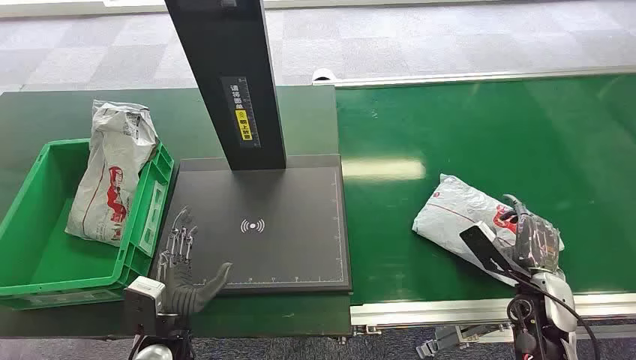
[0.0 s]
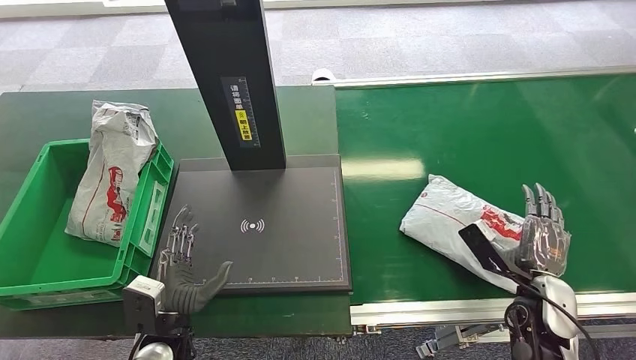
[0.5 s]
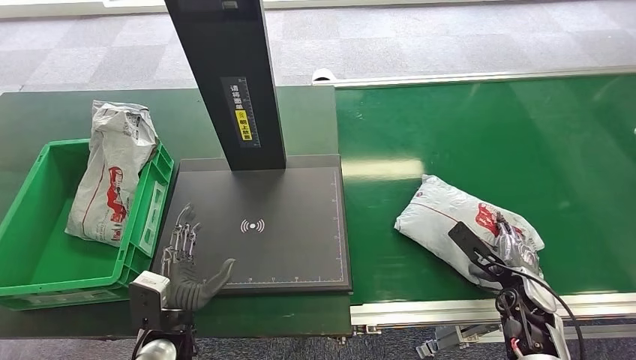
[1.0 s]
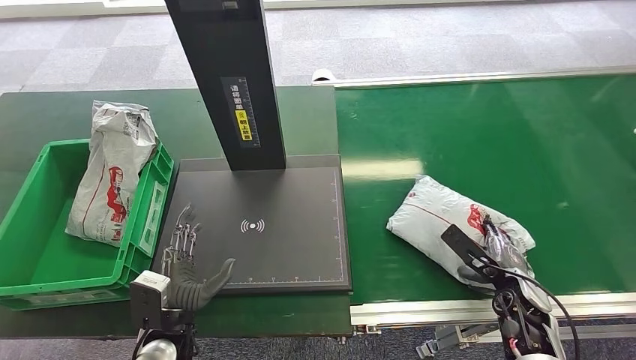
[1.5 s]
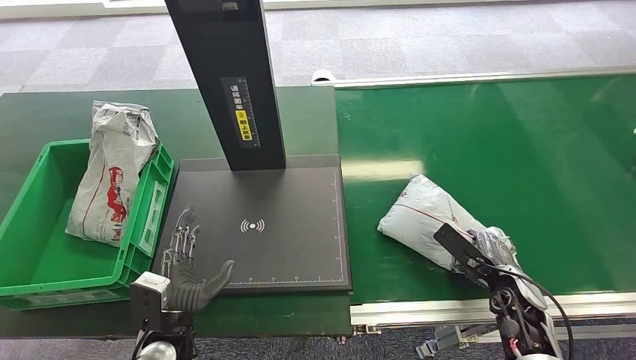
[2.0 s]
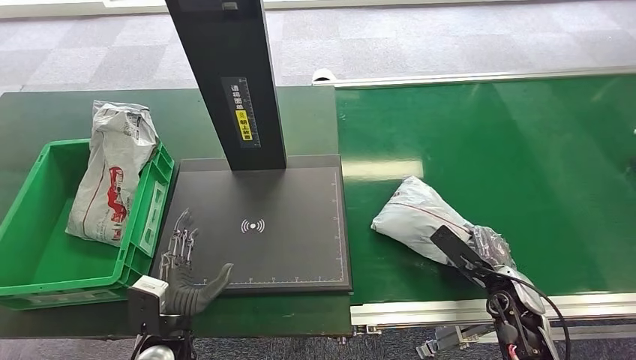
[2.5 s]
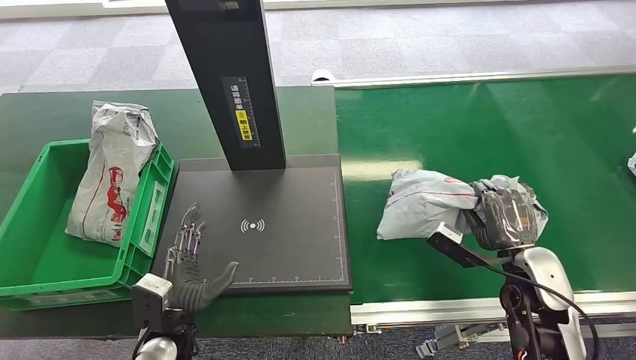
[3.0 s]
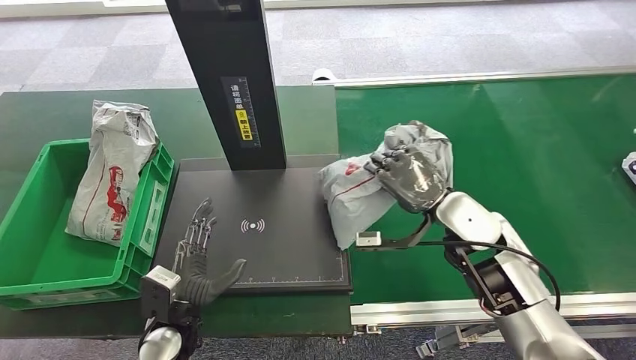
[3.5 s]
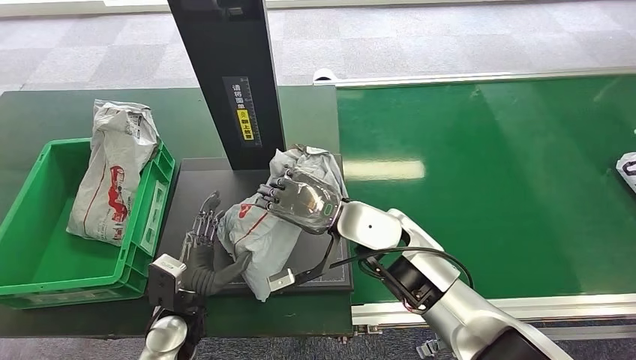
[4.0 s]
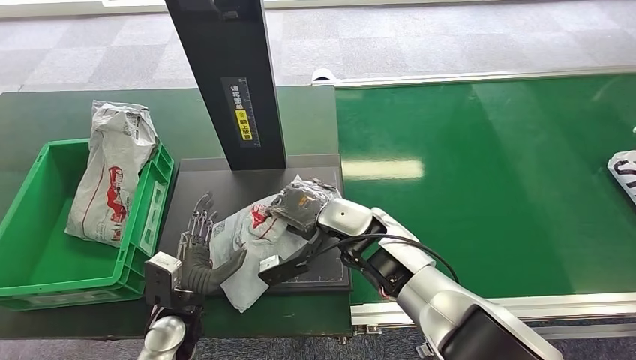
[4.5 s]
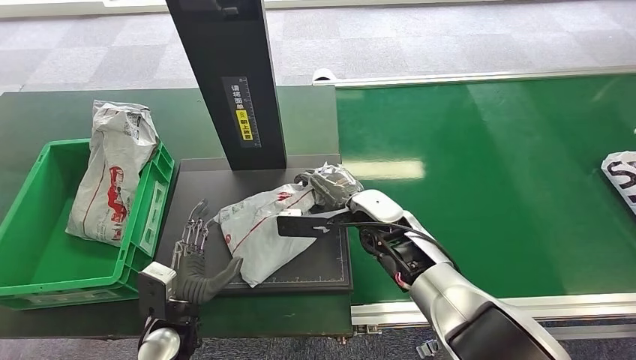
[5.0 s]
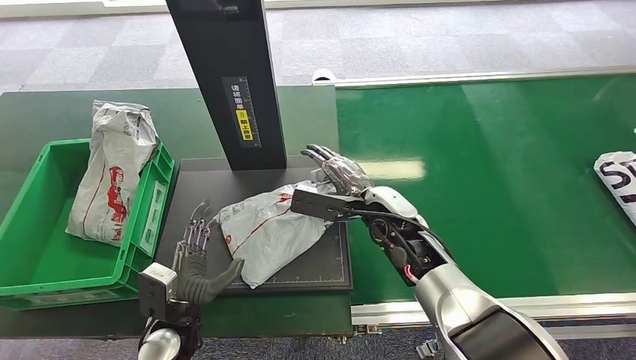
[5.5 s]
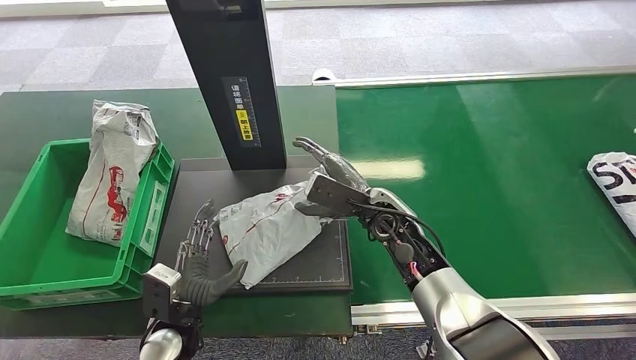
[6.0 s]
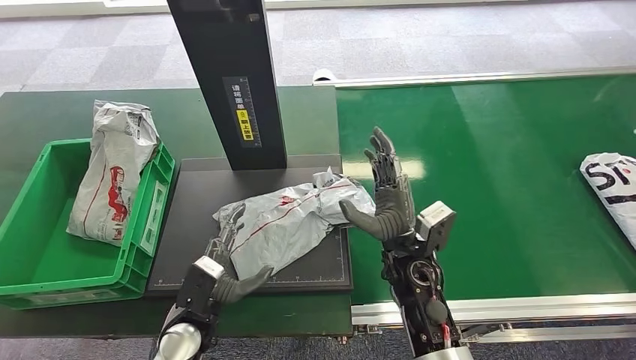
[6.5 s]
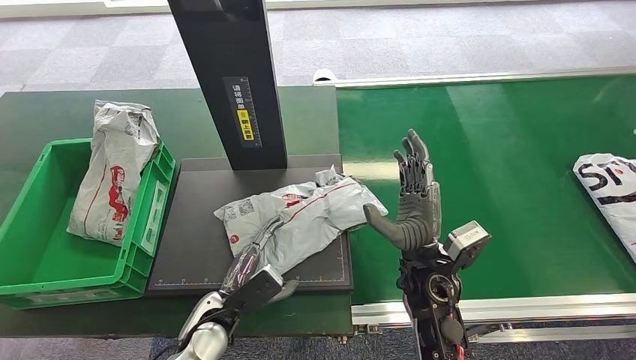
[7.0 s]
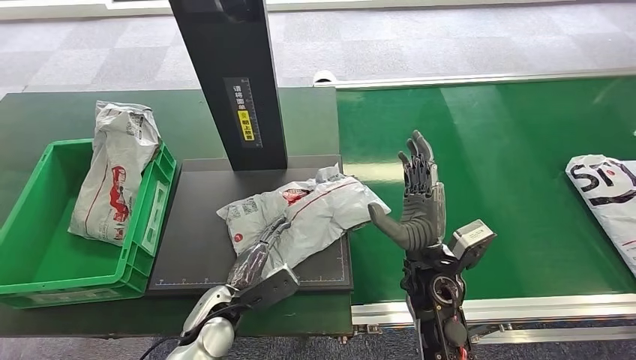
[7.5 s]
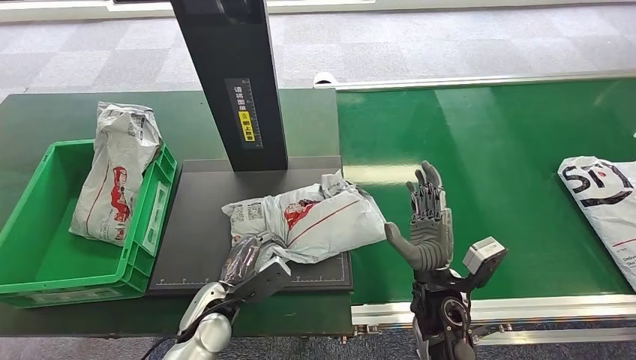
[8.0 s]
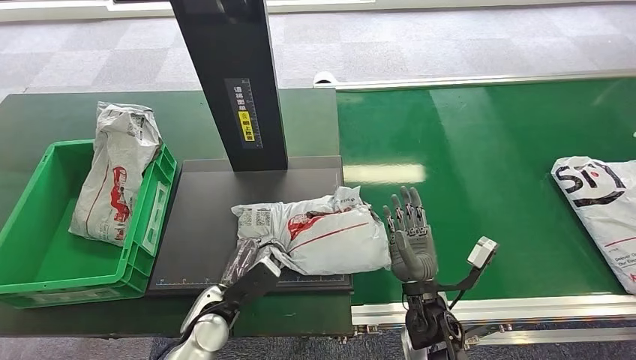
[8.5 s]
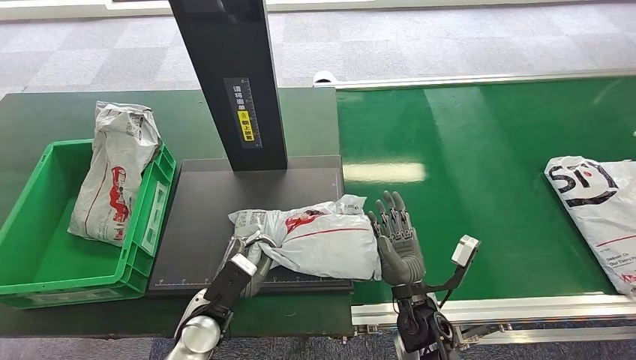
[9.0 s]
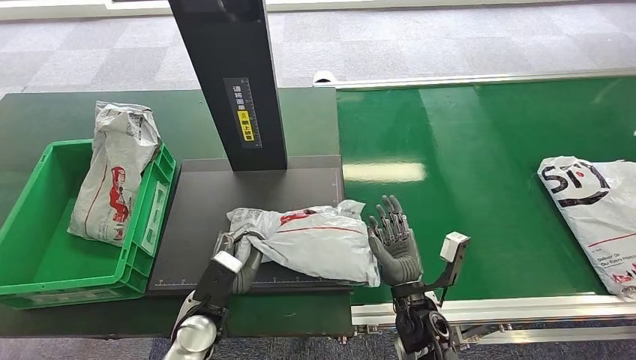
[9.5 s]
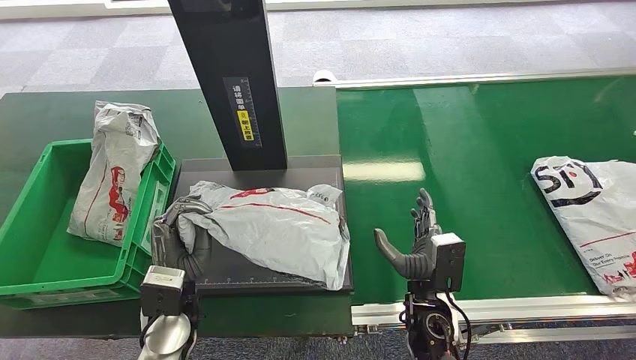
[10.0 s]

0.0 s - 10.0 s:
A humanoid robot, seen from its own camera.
Step, 0.0 s - 3.0 s: Pick up the package from the conveyor belt.
Step, 3.5 s - 6.0 s: Place the package onto the inbound machine.
2.0 s - 4.0 s: The right hand travels to the left and upward by some 30 cm.
4.0 s - 6.0 s: The right hand changes place by approximately 5 cm.

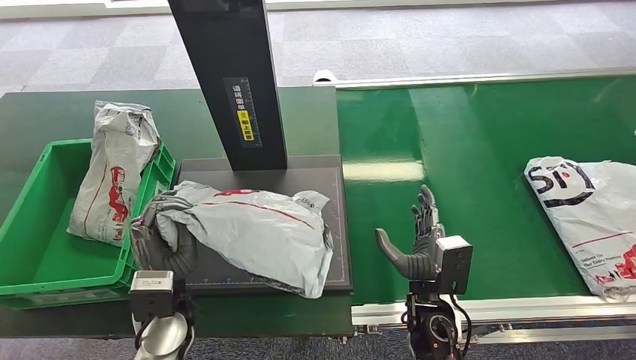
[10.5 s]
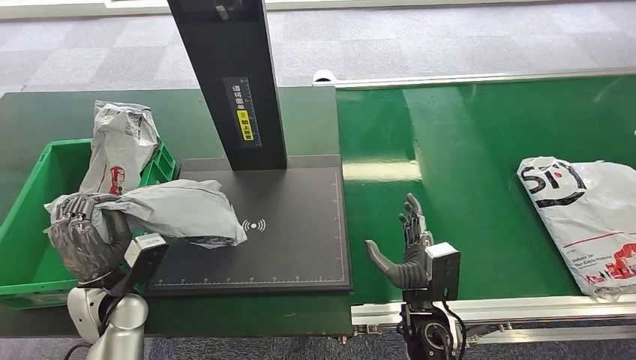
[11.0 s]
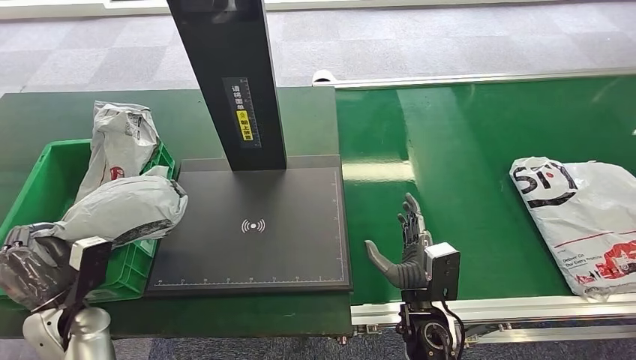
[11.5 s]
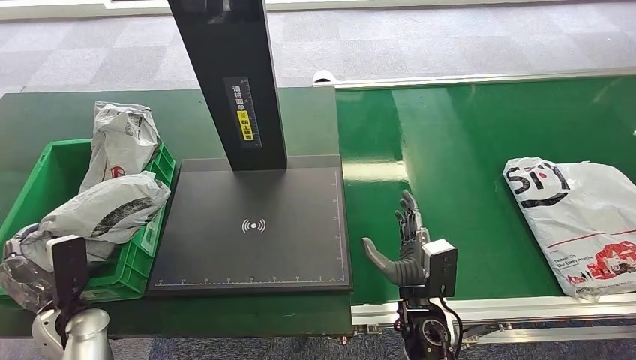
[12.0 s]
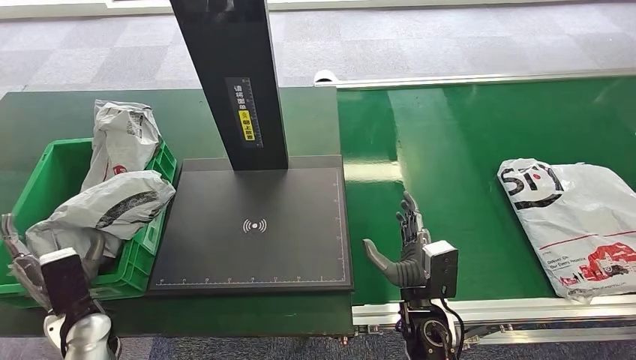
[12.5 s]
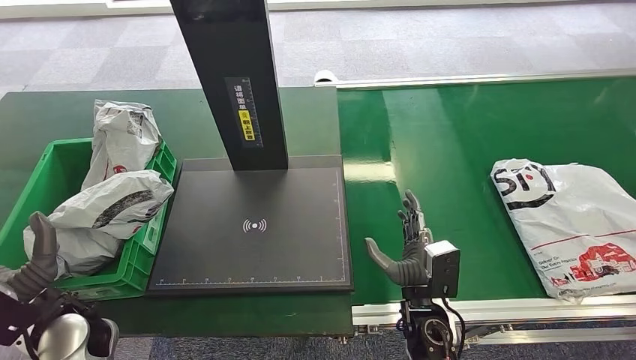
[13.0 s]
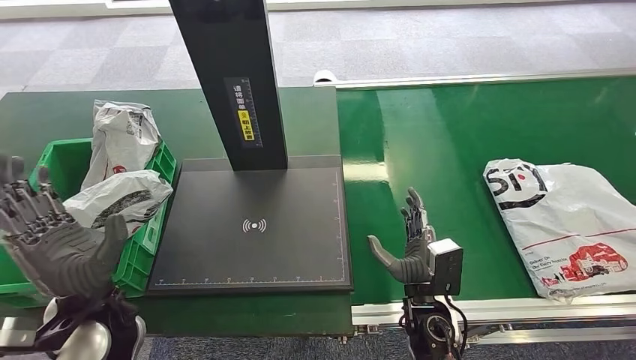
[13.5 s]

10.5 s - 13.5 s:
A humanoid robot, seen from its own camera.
Step, 11.0 s - 13.5 s: Place the package into the parcel locker.
12.0 s - 13.5 s: The left hand moves upward and to the right, approximately 20 cm.

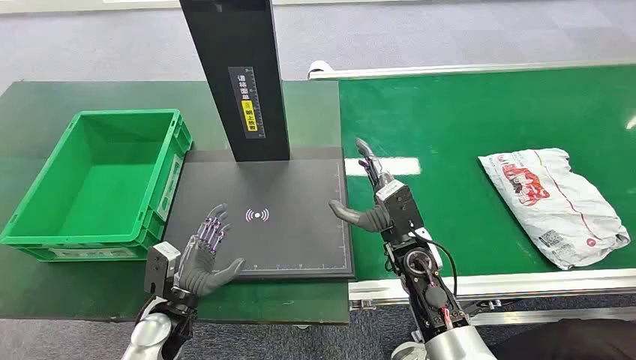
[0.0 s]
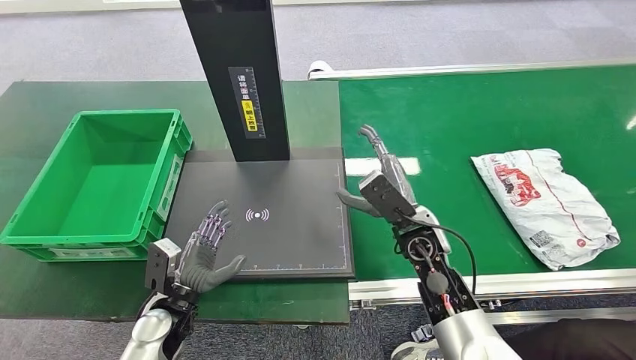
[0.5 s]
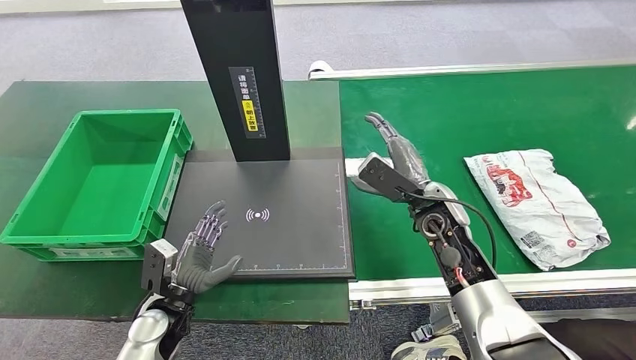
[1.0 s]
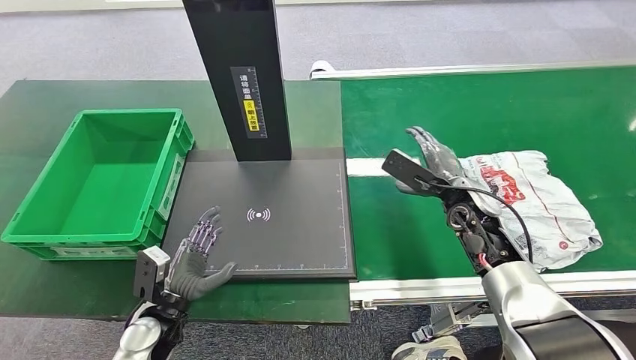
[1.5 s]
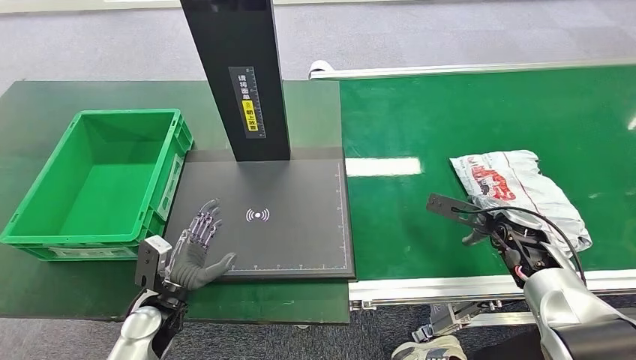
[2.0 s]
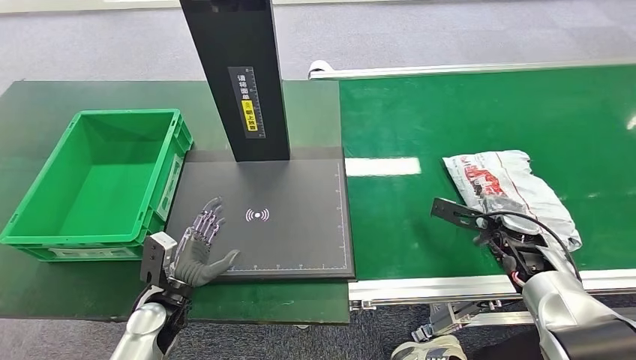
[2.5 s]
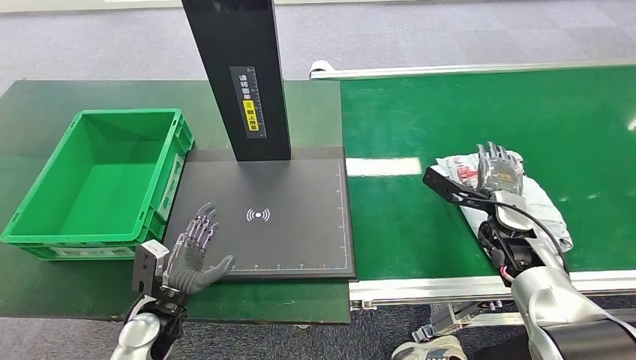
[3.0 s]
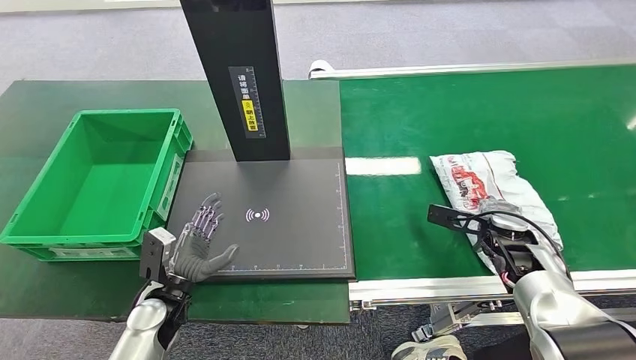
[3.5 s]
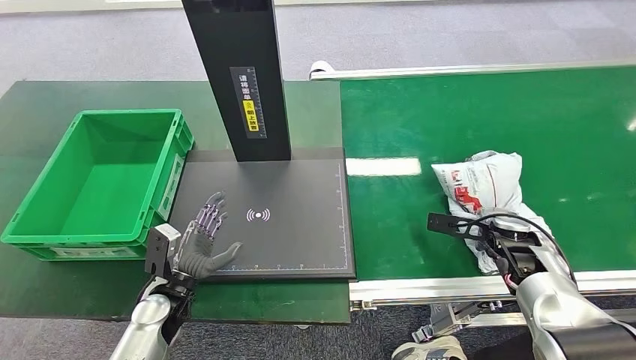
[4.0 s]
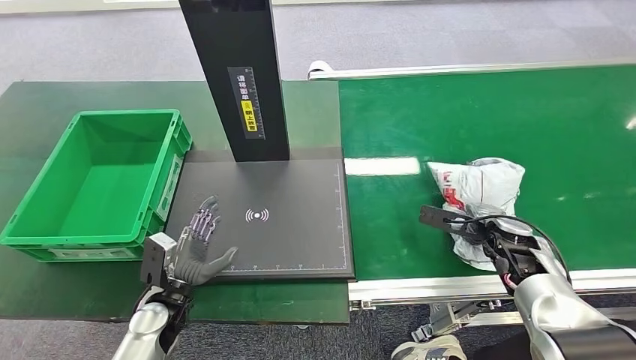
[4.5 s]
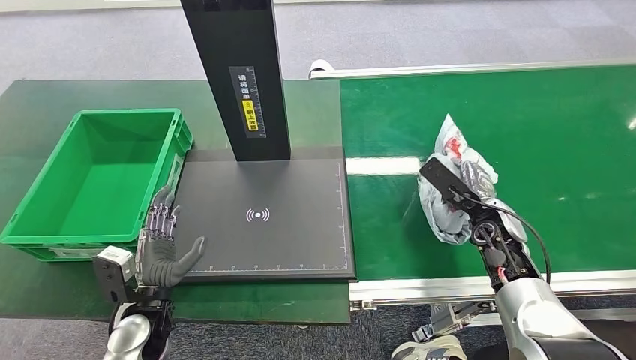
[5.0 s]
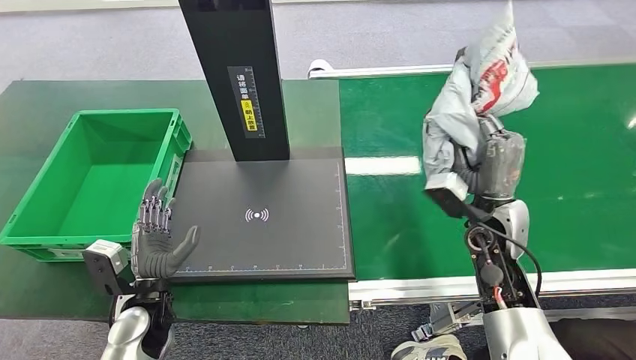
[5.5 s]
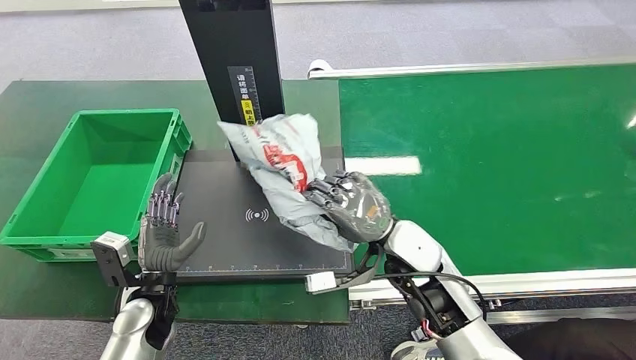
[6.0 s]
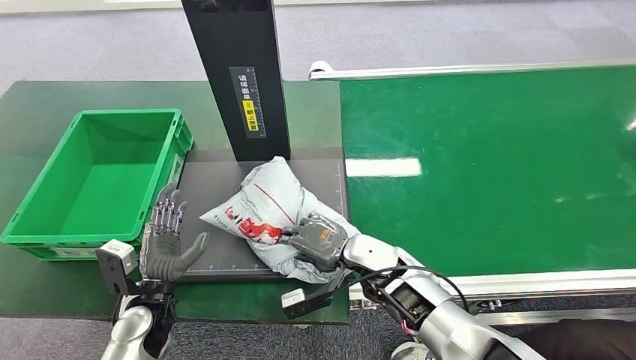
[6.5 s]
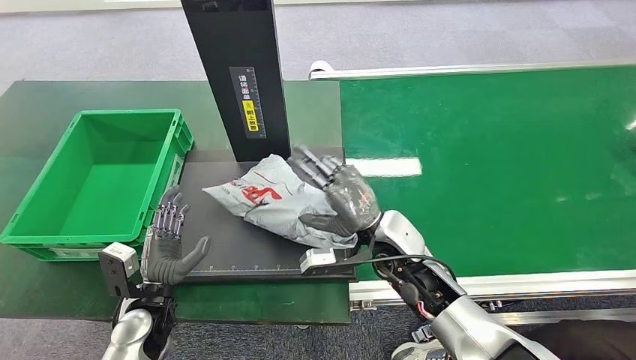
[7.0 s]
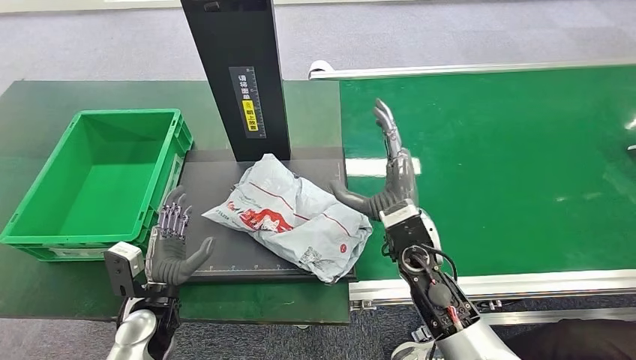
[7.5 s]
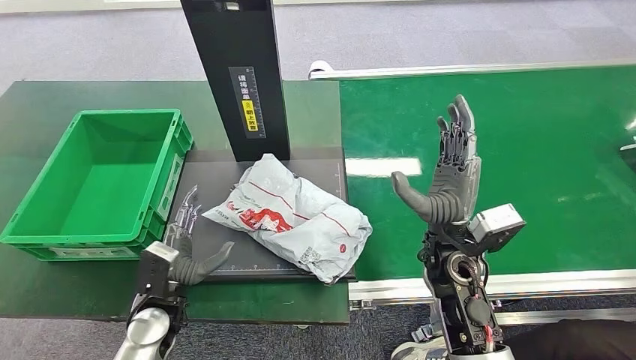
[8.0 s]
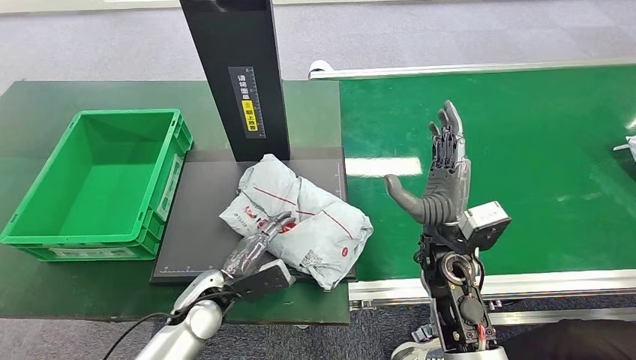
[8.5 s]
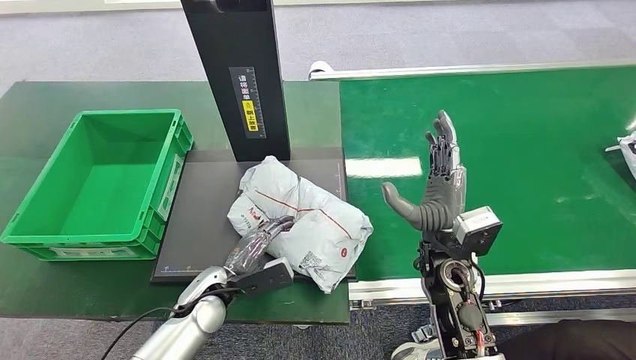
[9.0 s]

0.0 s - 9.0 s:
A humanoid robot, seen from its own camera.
Step, 0.0 s - 5.5 s: Pick up the package from the conveyor belt.
Step, 6.0 s - 7.5 s: Place the package onto the inbound machine.
7.0 s - 9.0 s: The two hands go about 5 cm to the right.
